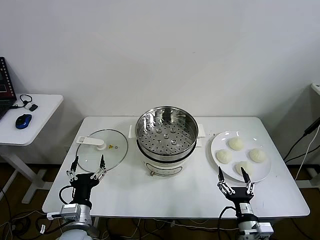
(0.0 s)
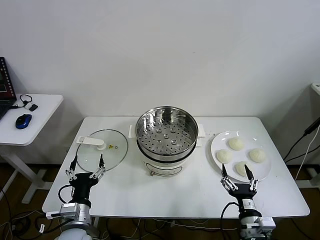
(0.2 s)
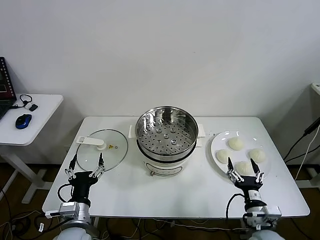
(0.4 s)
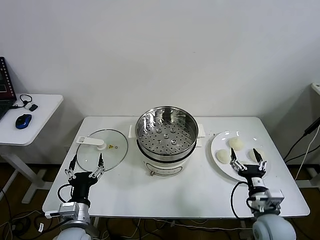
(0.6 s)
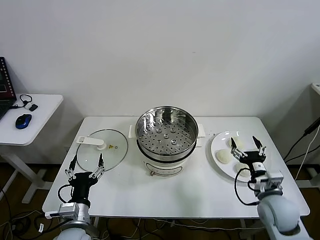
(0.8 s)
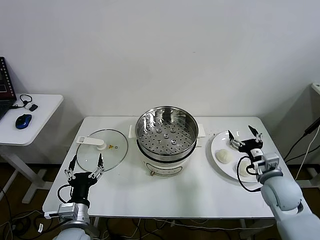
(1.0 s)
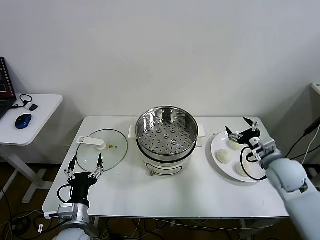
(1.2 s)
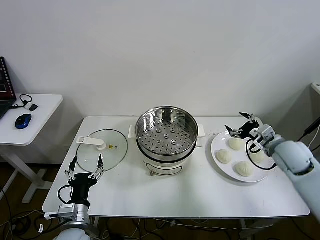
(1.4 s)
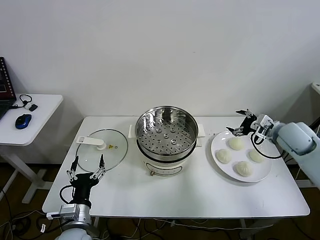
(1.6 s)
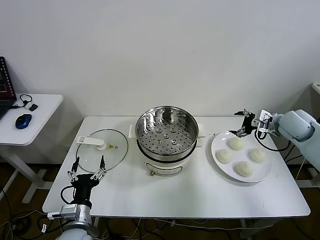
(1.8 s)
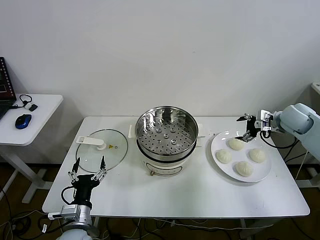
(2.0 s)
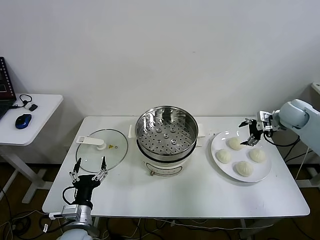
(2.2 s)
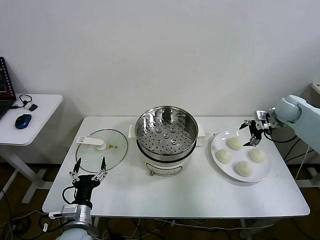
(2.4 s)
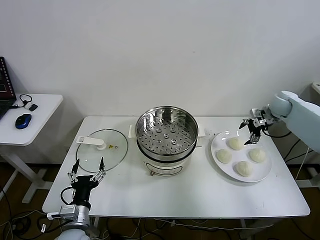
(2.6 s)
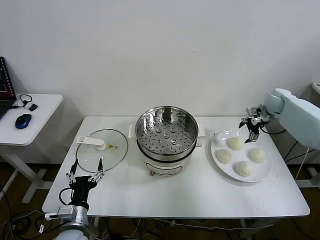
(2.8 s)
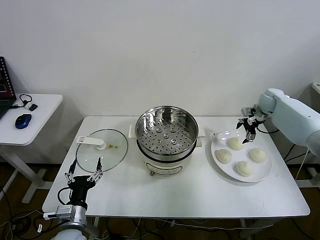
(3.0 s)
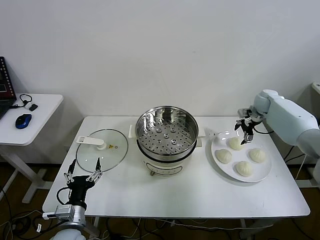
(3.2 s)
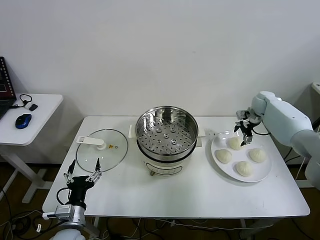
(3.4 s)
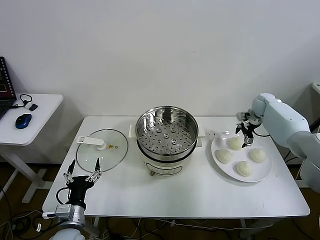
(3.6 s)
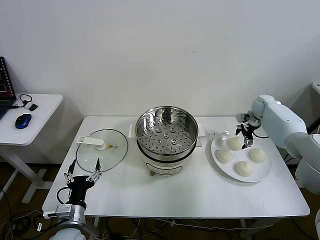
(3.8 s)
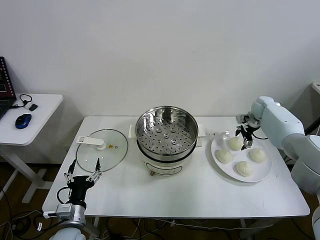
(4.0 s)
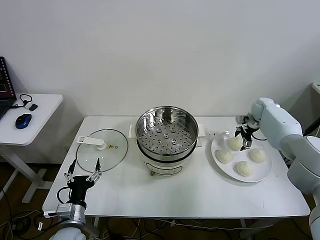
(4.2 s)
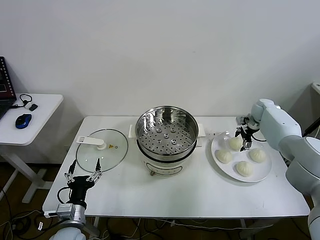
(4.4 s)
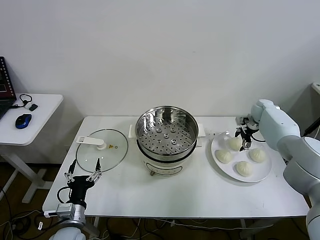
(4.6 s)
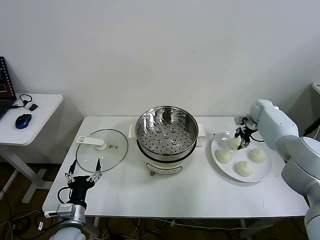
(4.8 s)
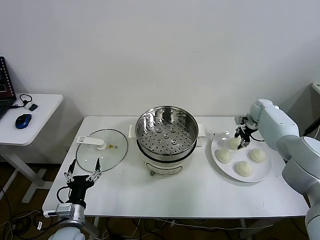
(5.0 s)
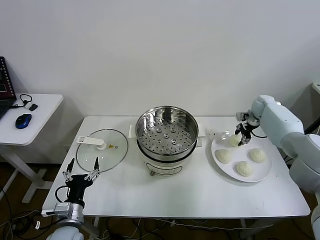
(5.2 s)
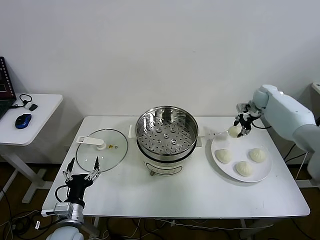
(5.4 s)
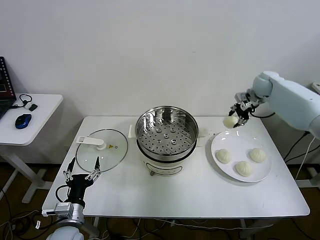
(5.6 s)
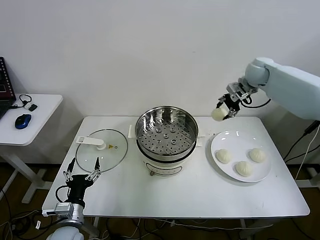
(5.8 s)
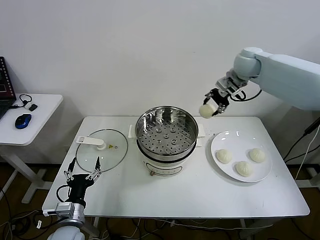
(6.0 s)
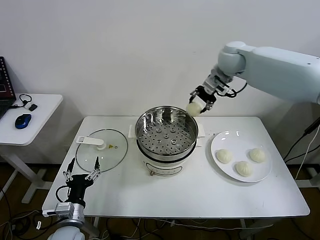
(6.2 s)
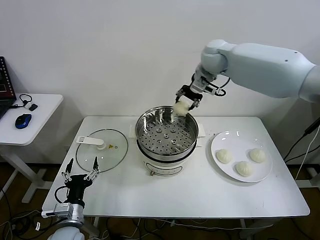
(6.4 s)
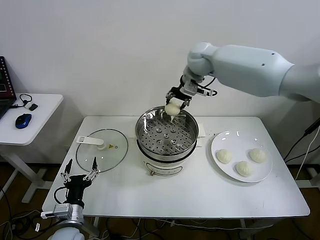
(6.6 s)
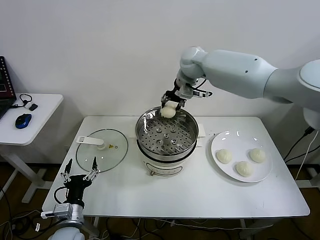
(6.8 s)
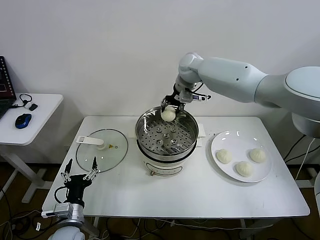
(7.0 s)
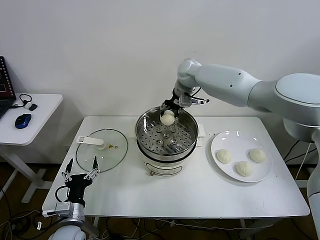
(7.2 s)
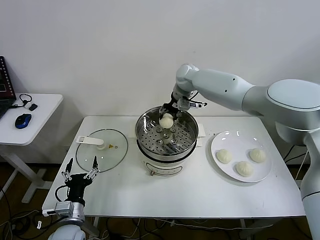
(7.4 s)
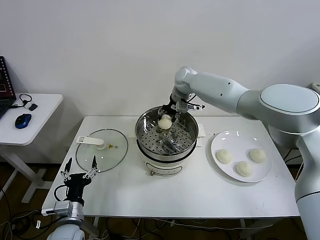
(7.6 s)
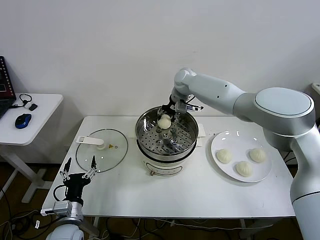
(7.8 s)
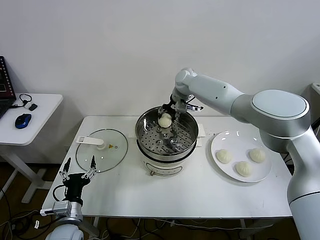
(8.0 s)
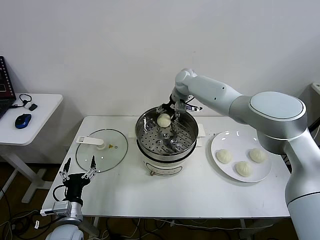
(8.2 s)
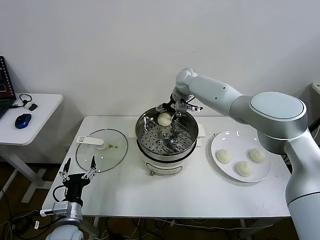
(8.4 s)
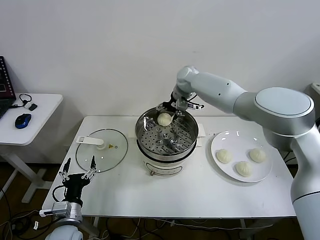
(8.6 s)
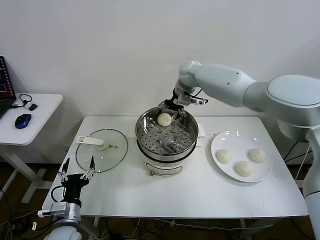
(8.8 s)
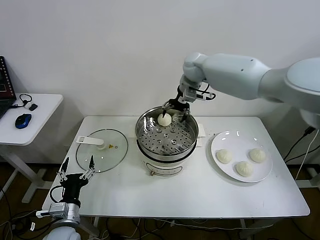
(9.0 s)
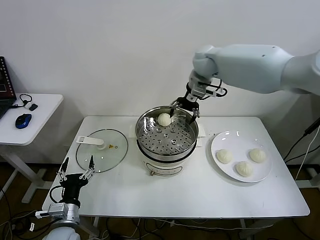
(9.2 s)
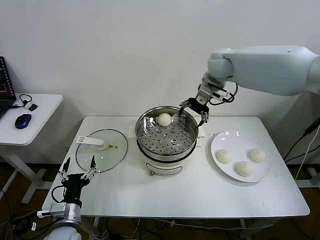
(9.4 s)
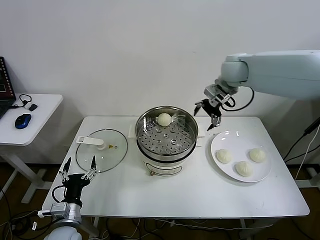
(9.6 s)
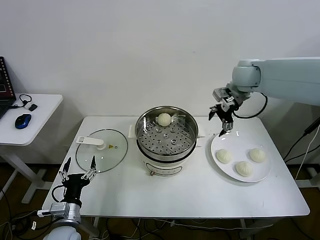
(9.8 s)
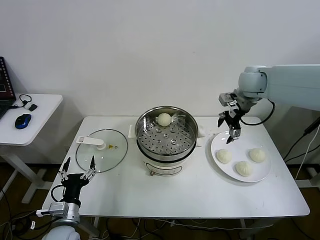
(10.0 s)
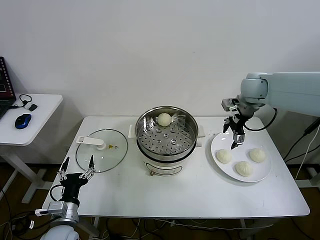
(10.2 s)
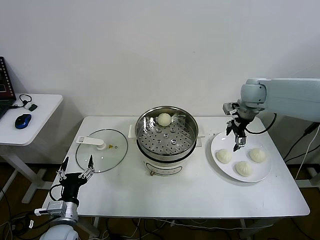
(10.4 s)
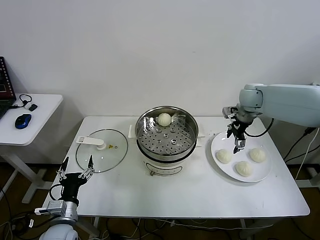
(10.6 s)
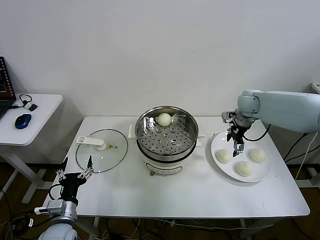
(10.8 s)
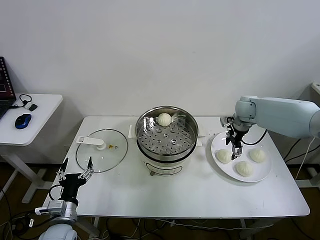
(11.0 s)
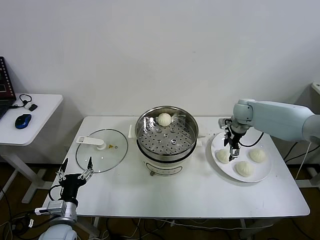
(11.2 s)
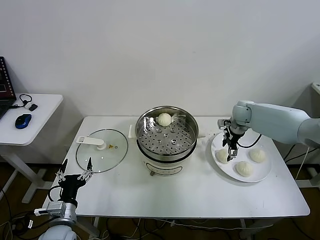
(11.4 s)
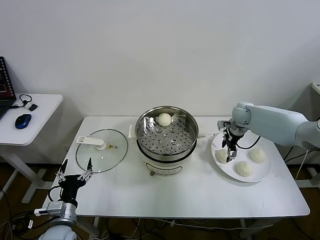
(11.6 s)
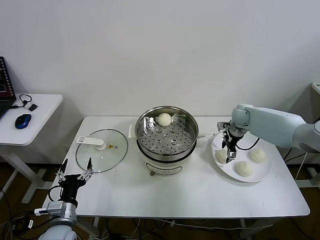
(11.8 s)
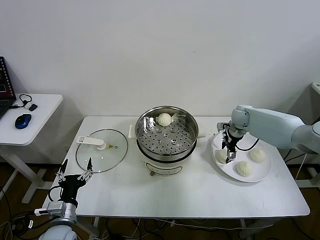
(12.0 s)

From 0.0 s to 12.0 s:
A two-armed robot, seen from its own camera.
Step, from 0.0 s to 4.8 s: Grasp the baozi in the plate with right gripper.
Step, from 5.0 s to 9.0 s: Place the baozi on the steamer with right gripper.
From 1.6 s to 3.0 s: The right gripper is displaced forward by some 20 cm.
From 3.0 s to 4.4 s: The right gripper shifts some 5 cm downward.
From 4.4 s to 6.0 s: The right gripper is displaced upward and to the left by some 30 cm, and closes its fingers.
From 6.0 s to 7.6 s: The right gripper moves to the left and downward, some 20 cm.
From 7.6 s to 9.0 s: The right gripper goes roughly 10 cm upward, and opens up.
From 9.0 s to 10.4 s: The right gripper goes approximately 20 cm to the right.
From 10.4 s to 12.0 s: The right gripper is displaced downward by roughly 15 cm.

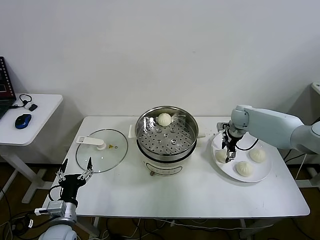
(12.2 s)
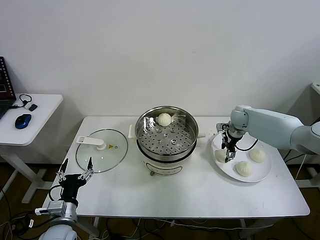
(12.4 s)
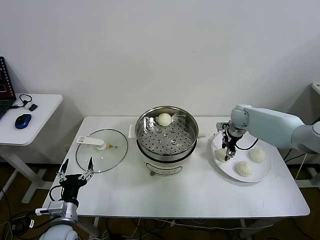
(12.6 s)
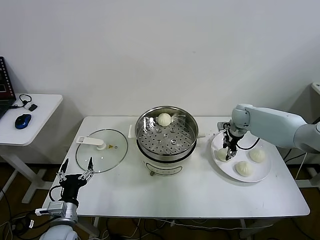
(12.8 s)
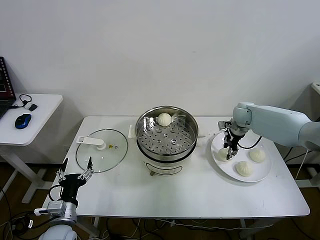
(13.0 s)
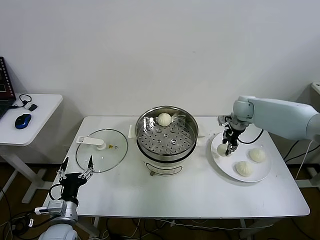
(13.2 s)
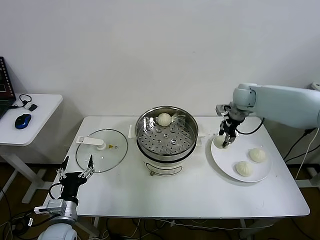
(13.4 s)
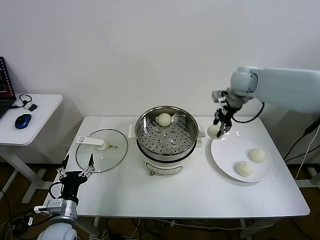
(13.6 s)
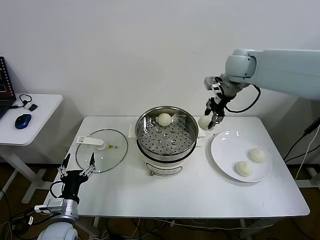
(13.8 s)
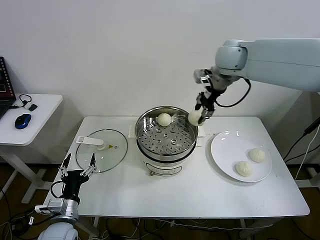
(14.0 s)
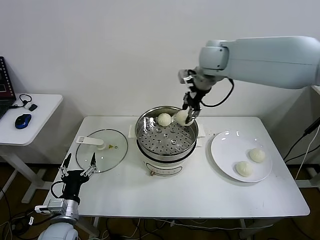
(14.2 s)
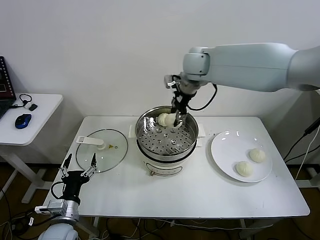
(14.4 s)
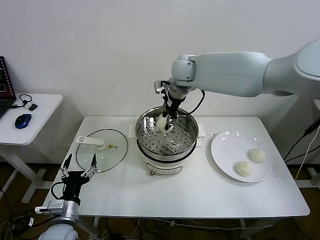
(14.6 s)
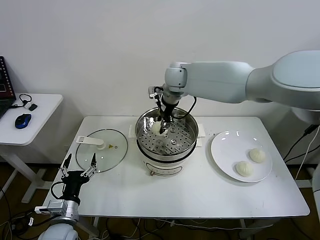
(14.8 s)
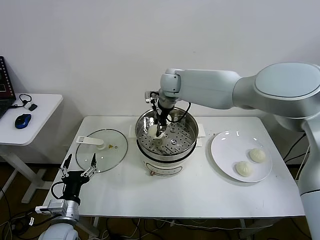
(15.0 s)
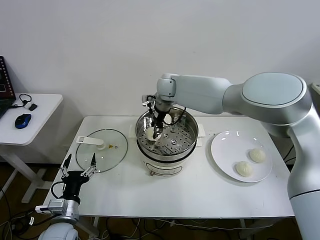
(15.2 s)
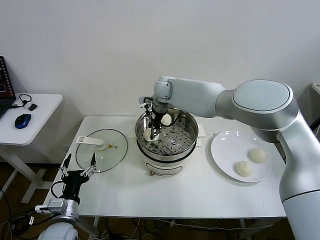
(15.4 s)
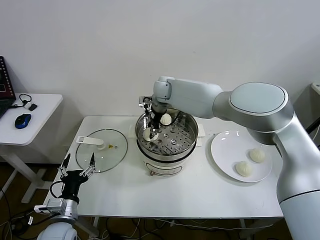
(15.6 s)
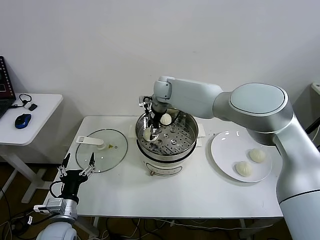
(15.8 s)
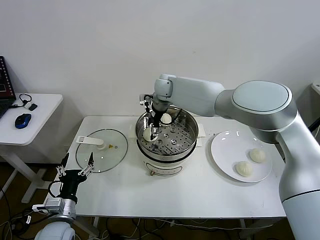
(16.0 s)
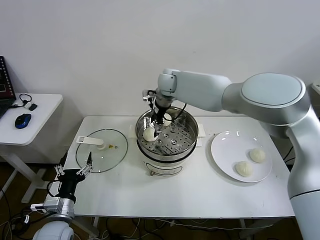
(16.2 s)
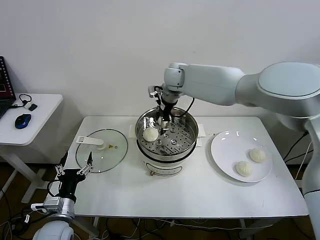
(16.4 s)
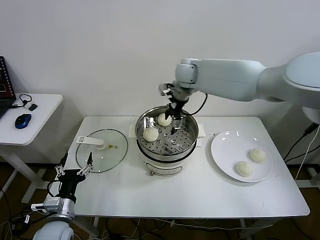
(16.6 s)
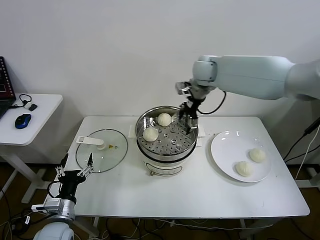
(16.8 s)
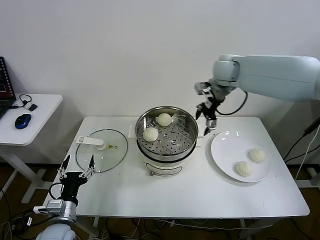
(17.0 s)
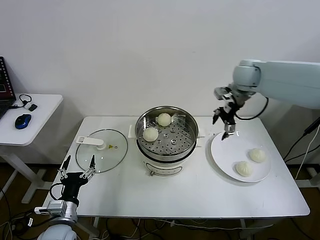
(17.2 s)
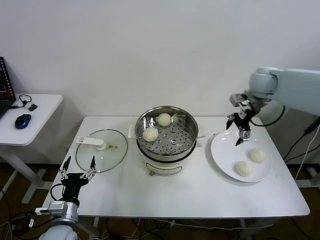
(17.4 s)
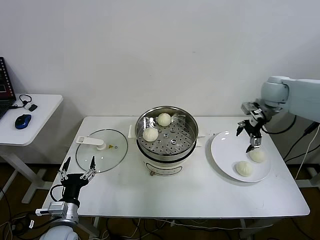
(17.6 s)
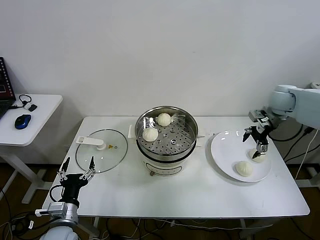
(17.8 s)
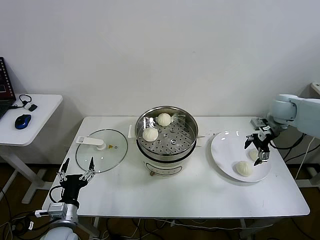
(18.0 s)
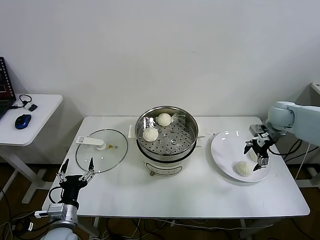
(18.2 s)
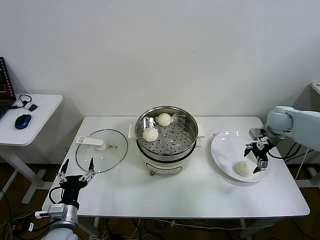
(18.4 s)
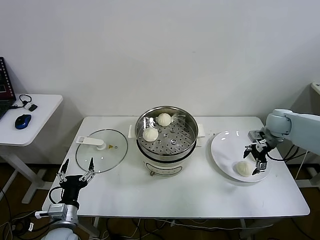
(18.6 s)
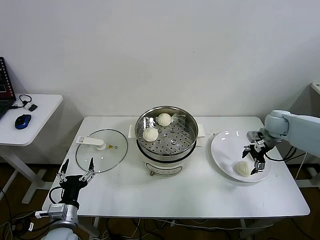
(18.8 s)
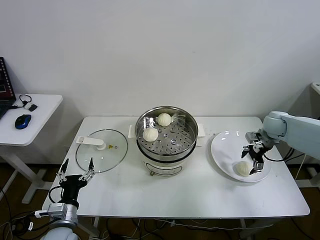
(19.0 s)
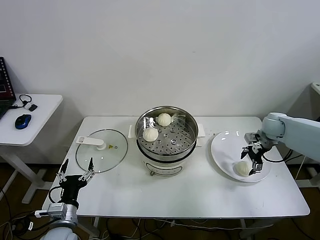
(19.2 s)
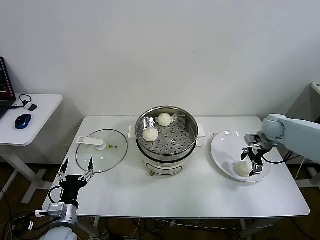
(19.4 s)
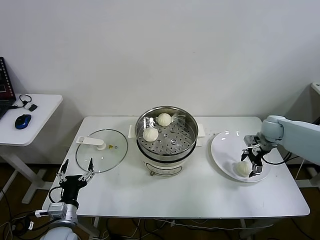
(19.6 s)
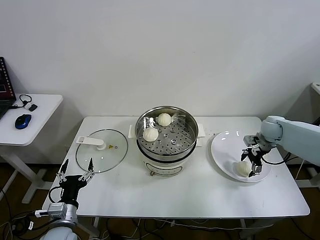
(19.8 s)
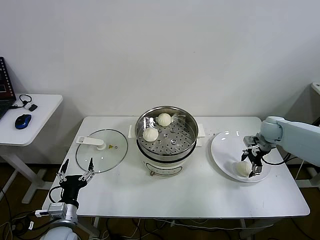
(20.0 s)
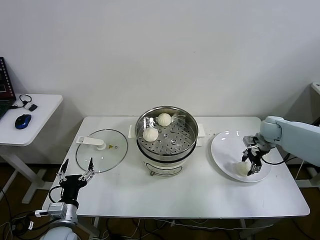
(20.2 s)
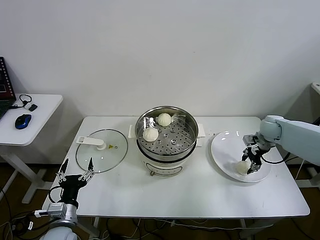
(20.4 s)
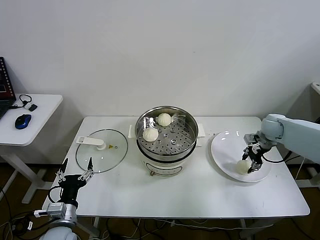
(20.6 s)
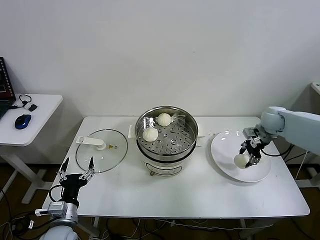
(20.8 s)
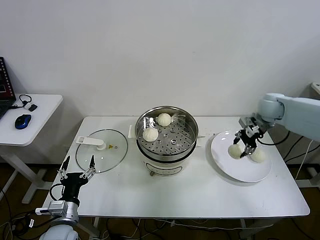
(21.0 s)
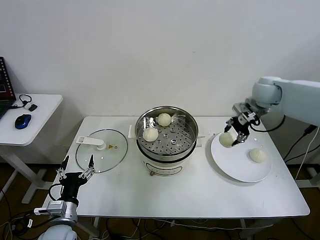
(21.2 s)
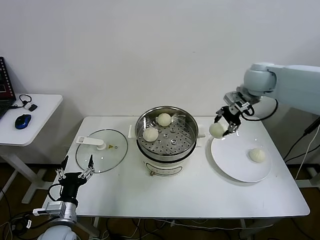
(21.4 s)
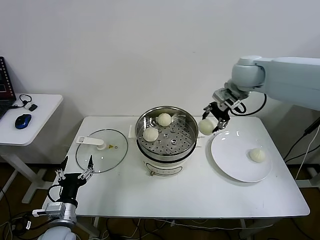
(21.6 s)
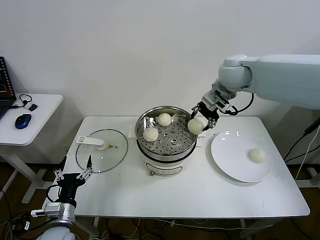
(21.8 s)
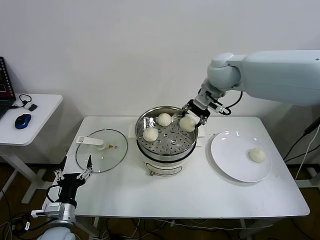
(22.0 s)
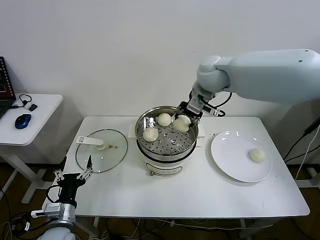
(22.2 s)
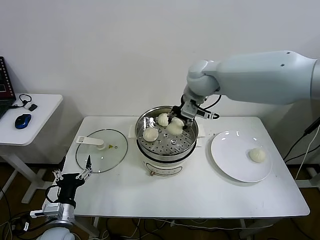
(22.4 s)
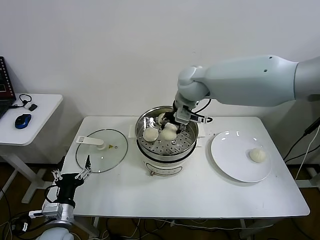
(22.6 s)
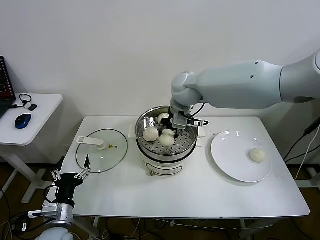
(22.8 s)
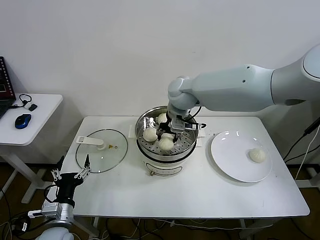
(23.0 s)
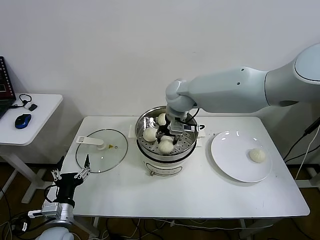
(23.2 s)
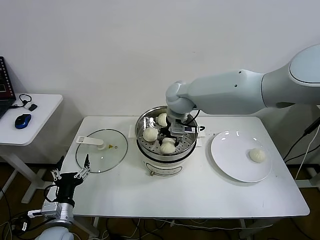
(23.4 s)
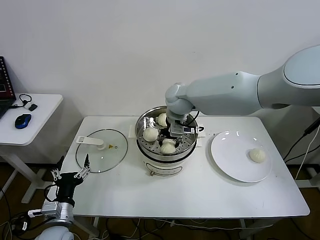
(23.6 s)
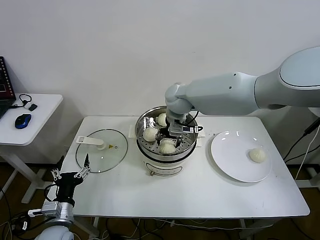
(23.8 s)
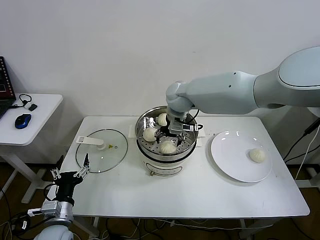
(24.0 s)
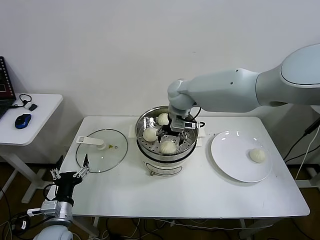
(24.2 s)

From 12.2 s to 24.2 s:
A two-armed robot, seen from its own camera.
Step, from 12.8 s to 16.2 s: Place the baozi on the steamer with right gripper.
Step, from 16.4 s to 20.4 s: Grasp the baozi in the plate with right gripper.
Step, from 20.6 s to 24.0 s: Place the baozi on the steamer with right gripper.
From 12.2 s to 13.8 s: The right gripper is displaced upward and to the left by roughly 30 cm, and closes its fingers.
From 13.8 s to 15.2 s: The right gripper travels to the left and downward by roughly 25 cm.
From 15.2 s to 16.6 s: The right gripper moves to the right and upward, approximately 10 cm, and opens its fingers.
From 16.6 s to 18.2 s: The right gripper travels to the right by about 30 cm.
From 18.2 s to 19.8 s: The right gripper moves downward, roughly 10 cm.
From 19.8 s to 21.2 s: The right gripper shifts some 20 cm upward and to the left, and closes up.
From 21.2 s to 22.6 s: The right gripper shifts roughly 25 cm to the left.
From 22.6 s to 24.2 s: The right gripper travels downward by some 5 cm, and opens its fingers.
